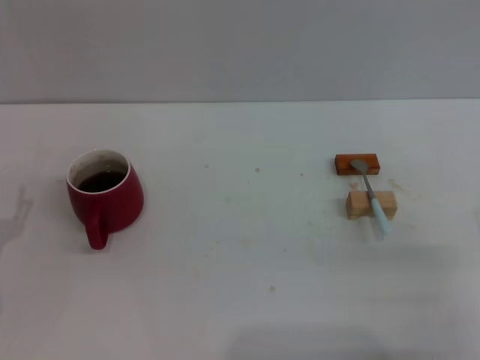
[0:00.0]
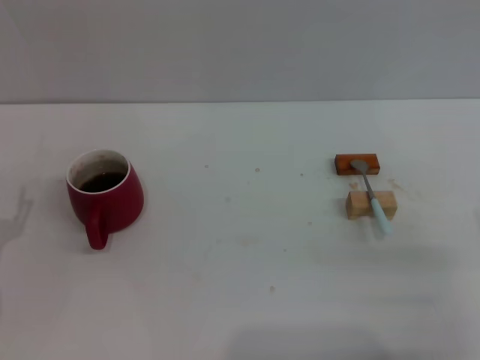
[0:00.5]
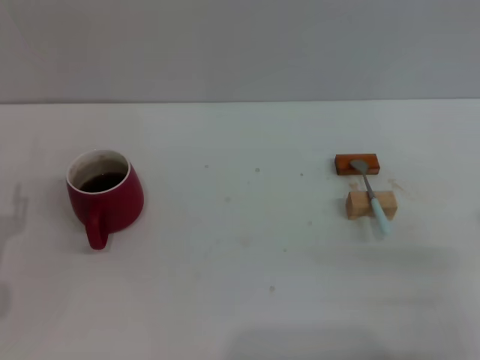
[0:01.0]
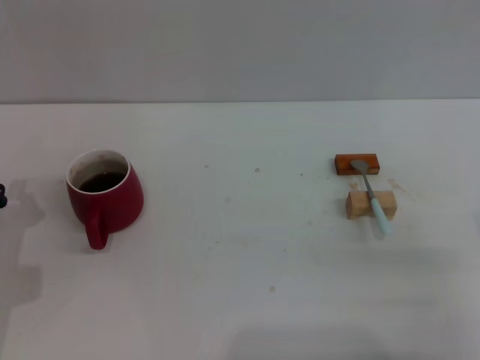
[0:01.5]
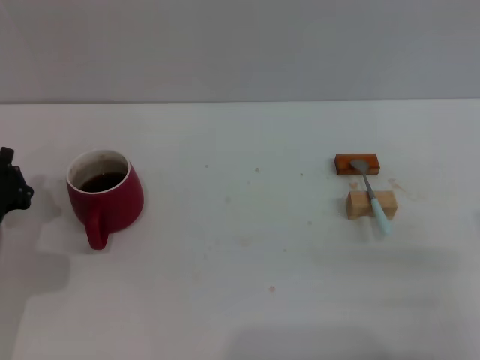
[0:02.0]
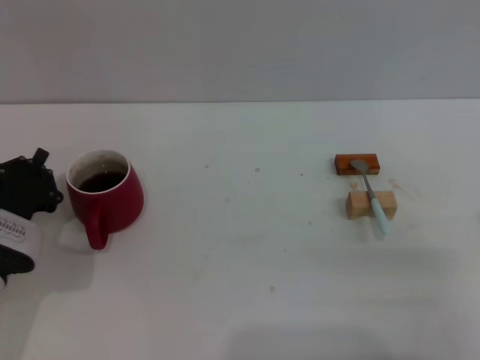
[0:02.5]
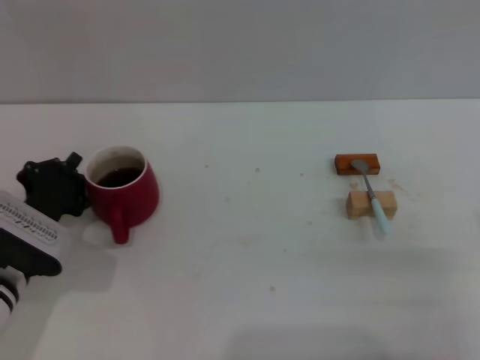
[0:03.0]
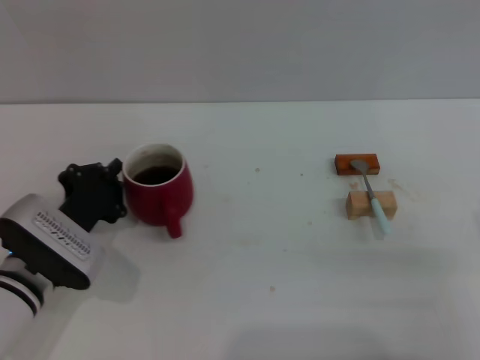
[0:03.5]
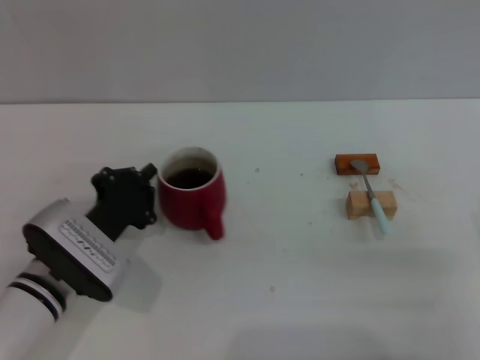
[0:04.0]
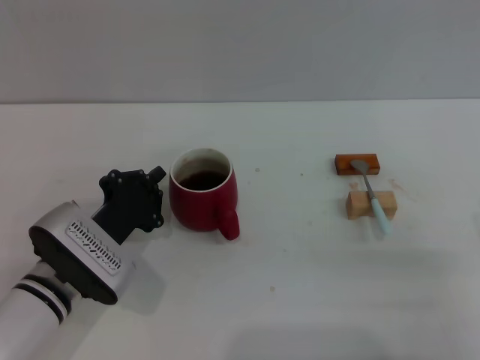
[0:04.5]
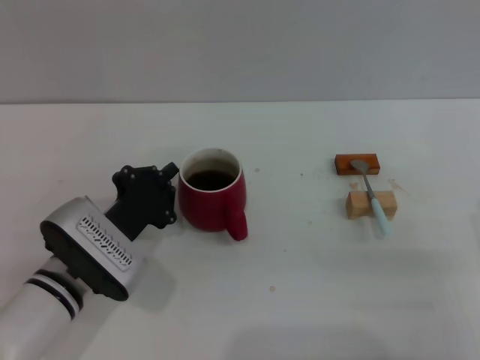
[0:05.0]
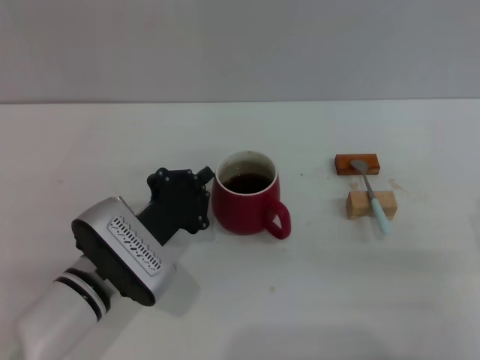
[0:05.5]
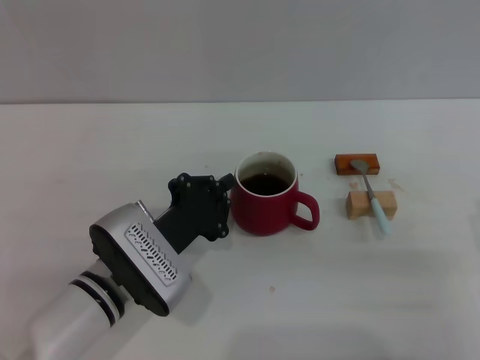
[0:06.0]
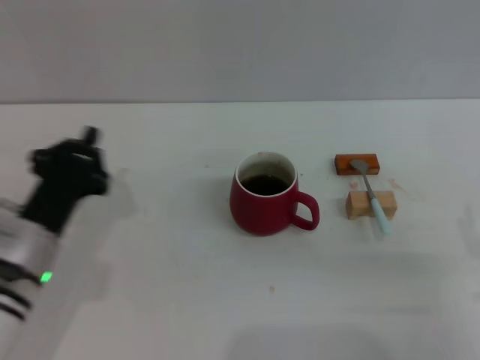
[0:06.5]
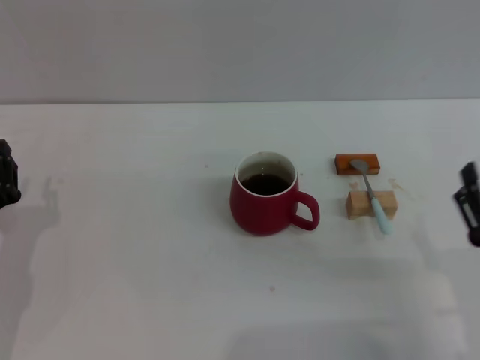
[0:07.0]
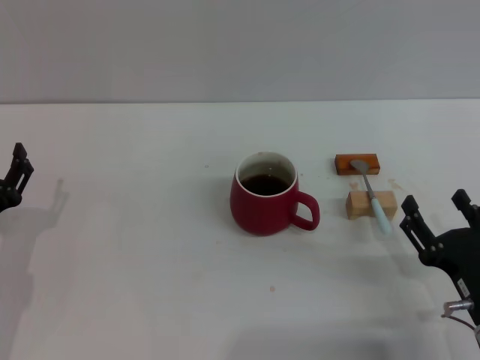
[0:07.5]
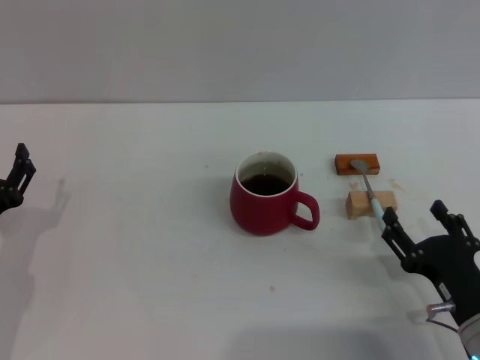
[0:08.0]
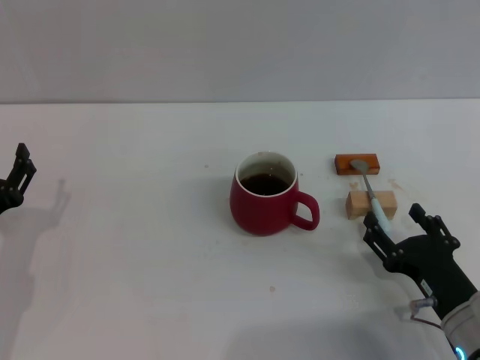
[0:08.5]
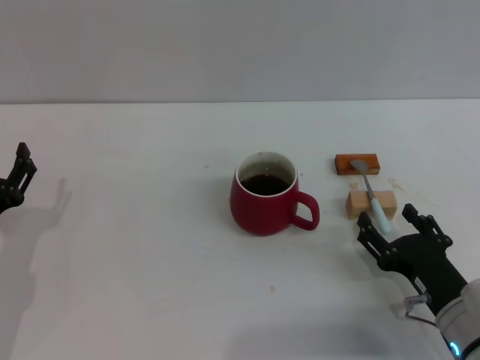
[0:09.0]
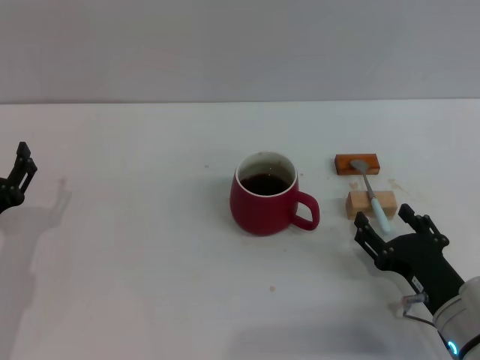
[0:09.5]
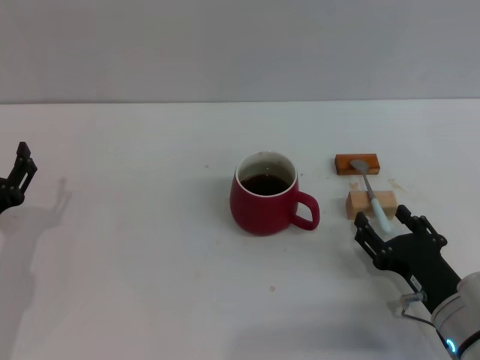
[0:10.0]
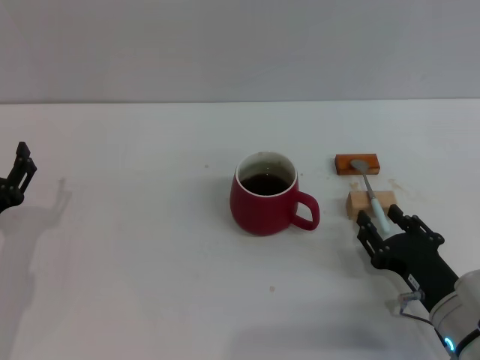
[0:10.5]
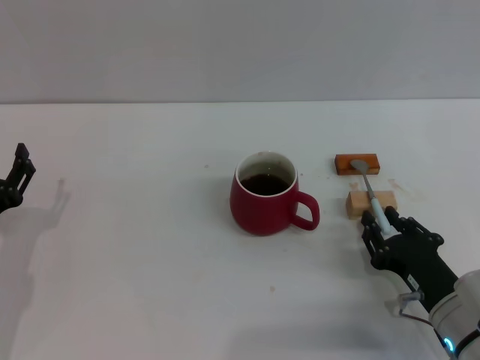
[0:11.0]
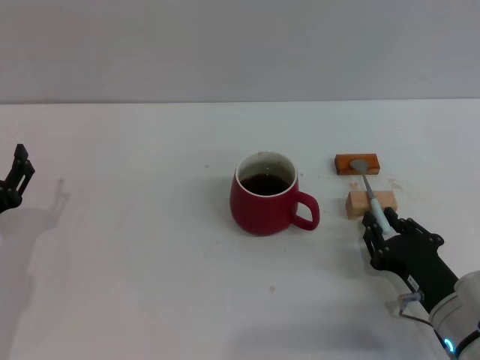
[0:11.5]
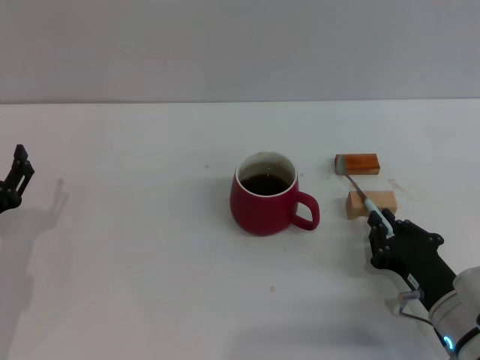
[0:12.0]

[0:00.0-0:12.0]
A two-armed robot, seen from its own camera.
Task of the whole recording: Move the red cup to the center, lift the blue spoon, stir it three times in the cup, and put the spoon into the cup.
Step, 0:00.0 to 0:06.0: Move the cup with coffee to the center of view with the left gripper.
0:00.0 to 0:02.0: The left gripper changes place by some 5 cm, and closes.
0:02.0 to 0:04.0: The left gripper is displaced to the right by about 10 cm.
0:04.0 to 0:06.0: The left gripper travels to the right by about 5 cm.
0:06.0 to 0:08.0: The right gripper travels downward by about 5 cm. Meanwhile the left gripper is displaced to the left by roughly 15 cm, and opens.
0:08.0 to 0:10.0: The grippers stay close to where they were, moving slightly.
0:10.0 to 0:12.0: The right gripper closes up.

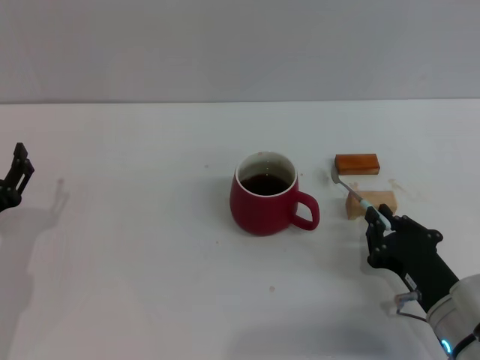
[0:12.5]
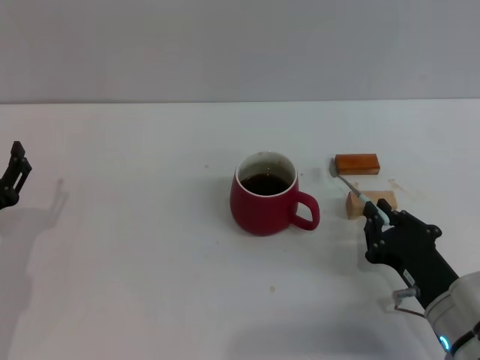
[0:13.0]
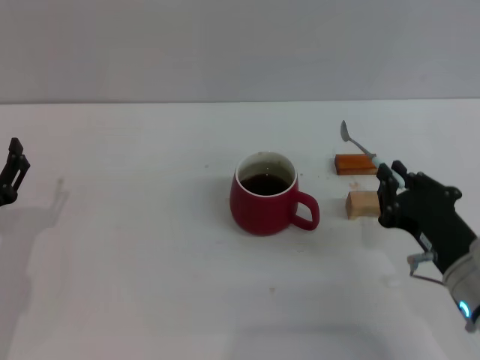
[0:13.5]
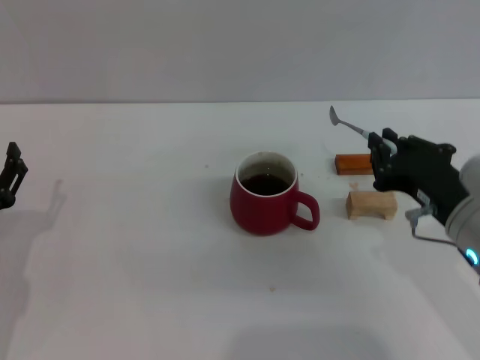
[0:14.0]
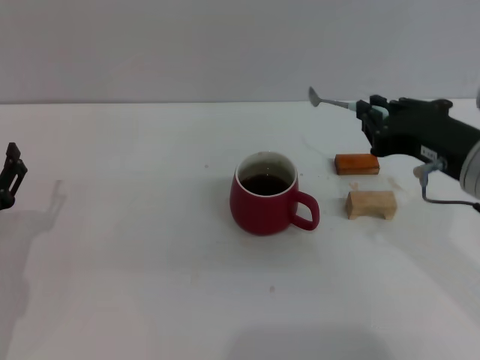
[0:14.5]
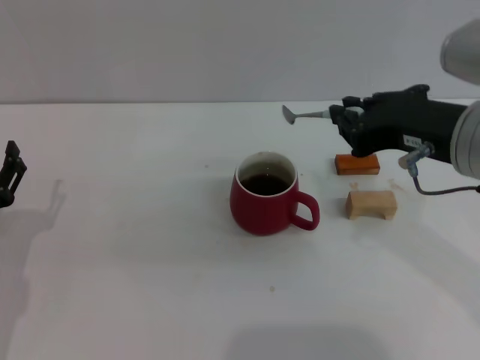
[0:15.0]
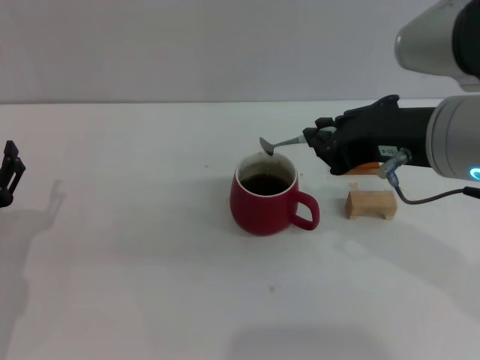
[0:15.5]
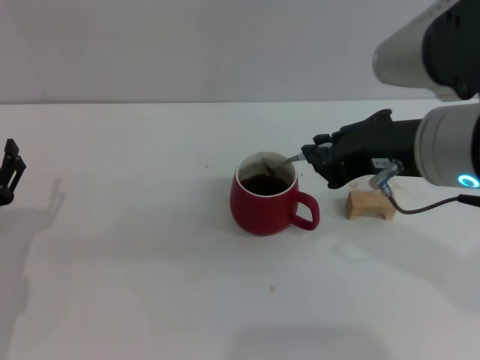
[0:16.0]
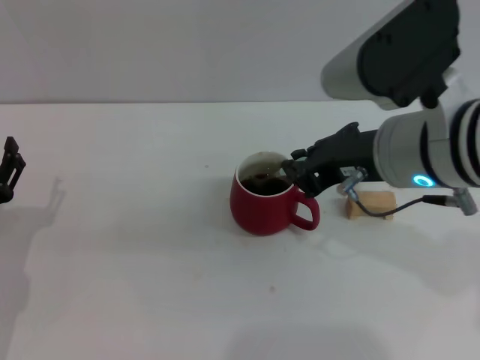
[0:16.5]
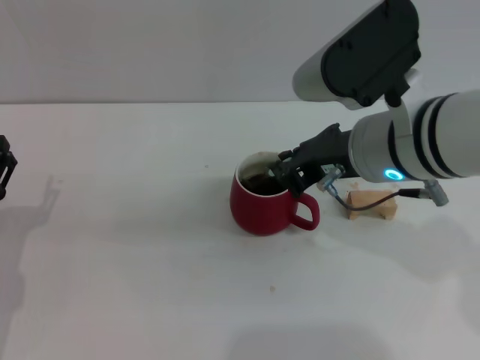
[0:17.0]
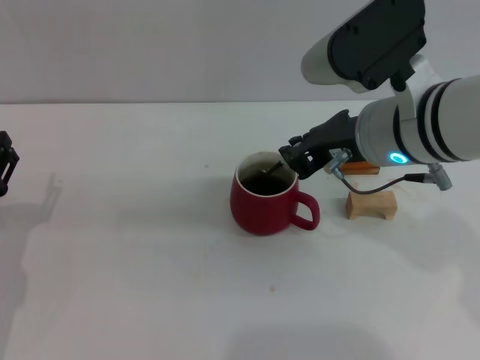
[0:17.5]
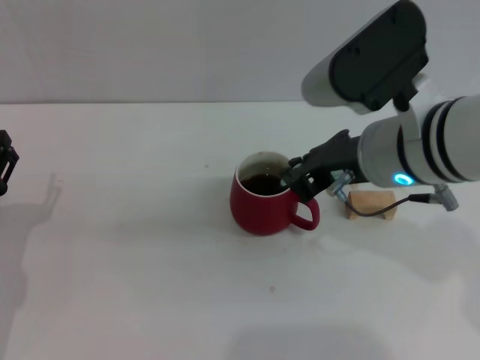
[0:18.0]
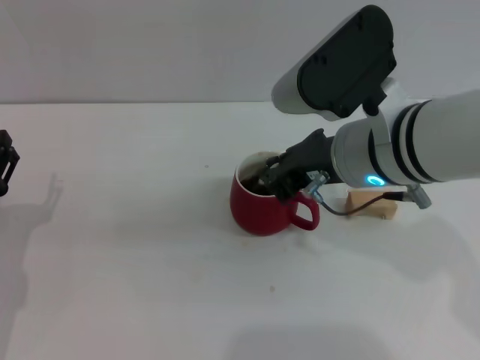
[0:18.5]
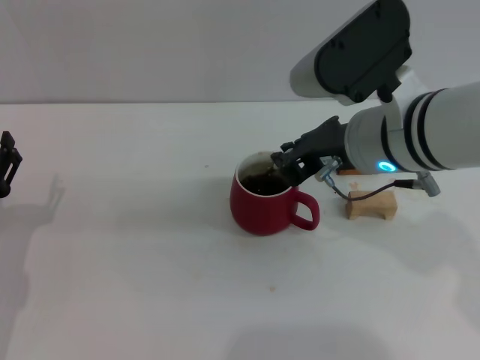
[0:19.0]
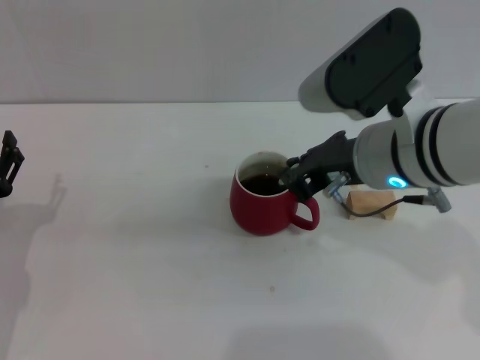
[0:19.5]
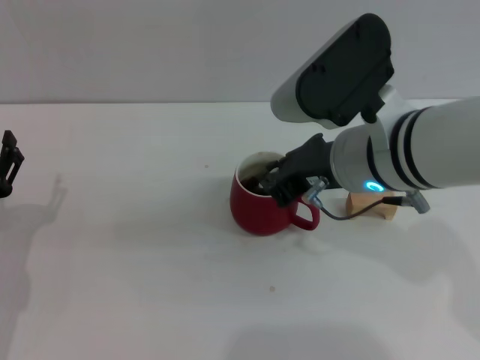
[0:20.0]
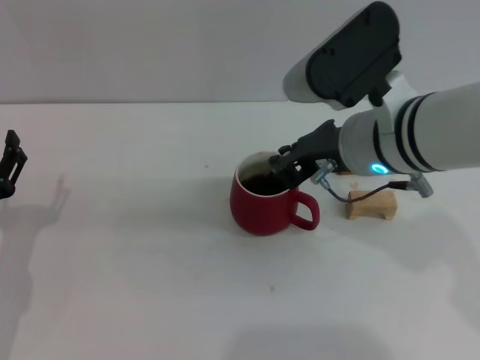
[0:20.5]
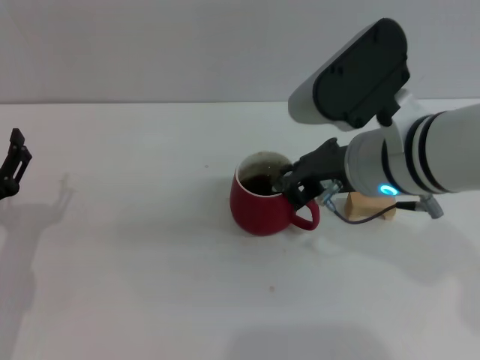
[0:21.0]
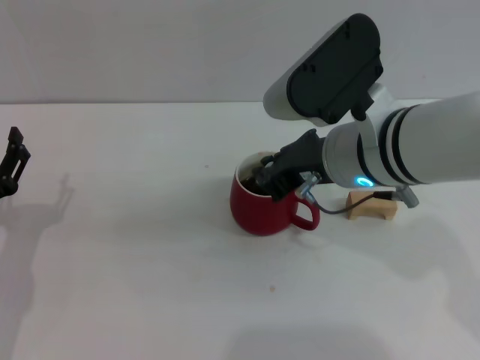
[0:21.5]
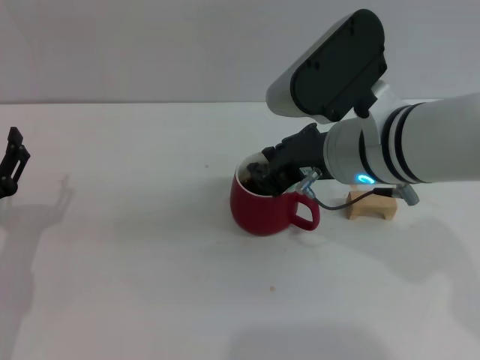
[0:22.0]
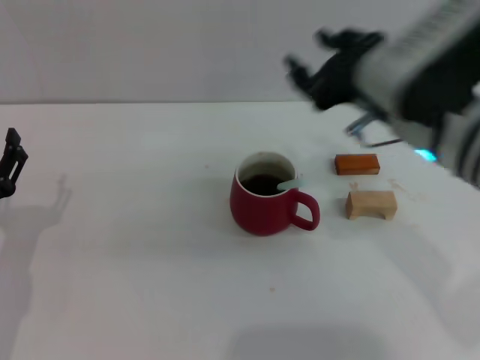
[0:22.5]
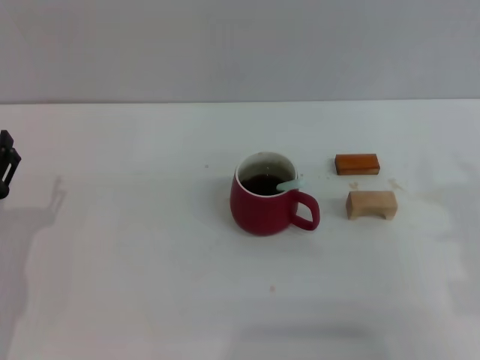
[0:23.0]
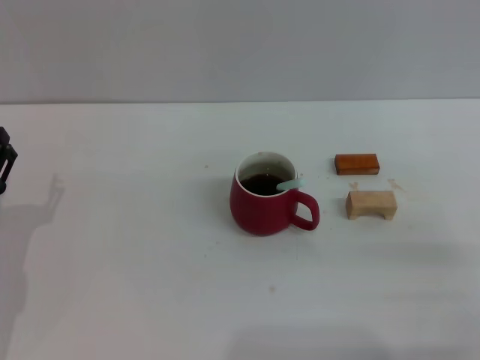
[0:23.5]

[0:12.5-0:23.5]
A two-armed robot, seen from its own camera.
Task of the whole recording: Move the red cup to the center, lift the blue spoon, stir it three times in the cup, and put the spoon into the cup.
Step, 0:14.5 to 0:22.0: Stir the coffee in the cup with the right gripper.
0:12.5 to 0:14.5: The right gripper heads upward, covering some 20 cm.
0:14.5 to 0:16.0: The right gripper moves upward, about 5 cm.
0:16.0 to 0:18.0: The right gripper moves approximately 5 cm.
0:18.0 to 0:21.5: The grippers stay close to where they were, moving slightly.
0:21.5 to 0:23.5: The right gripper goes about 30 cm to the right, backward and downward, and opens its fingers.
